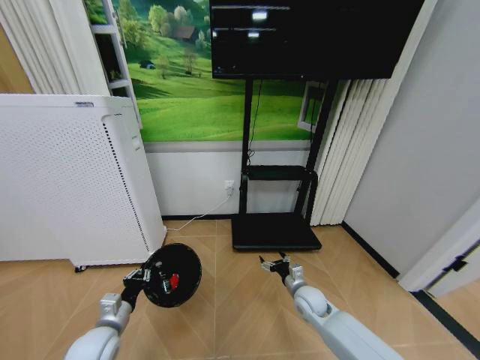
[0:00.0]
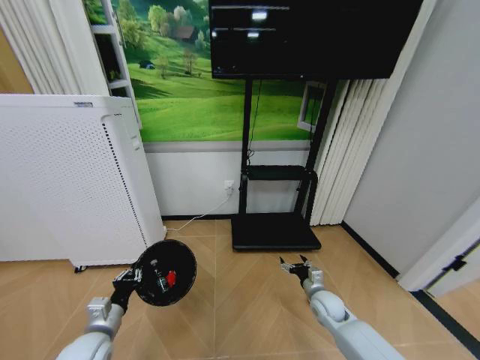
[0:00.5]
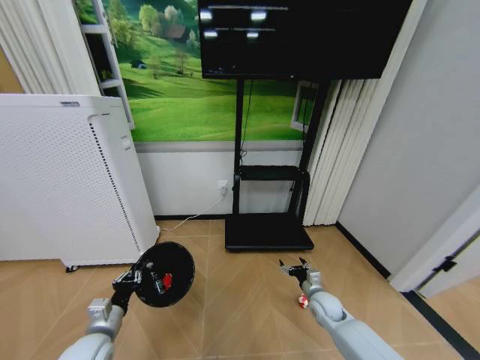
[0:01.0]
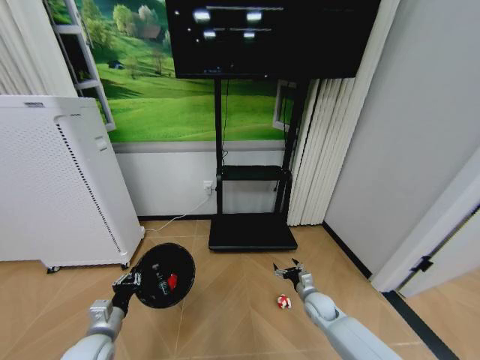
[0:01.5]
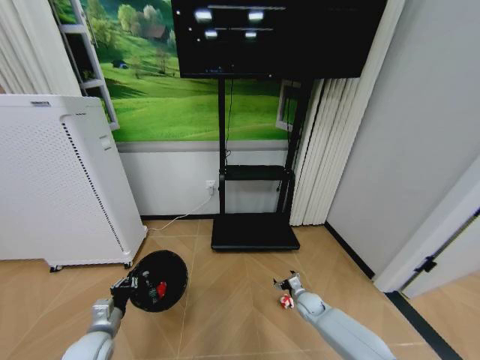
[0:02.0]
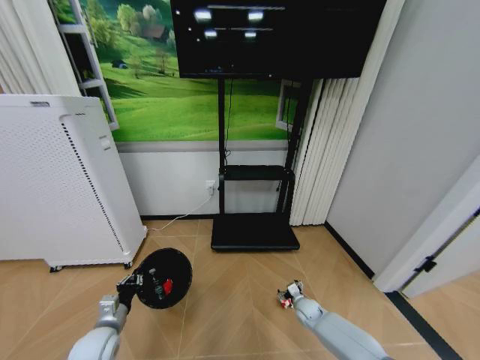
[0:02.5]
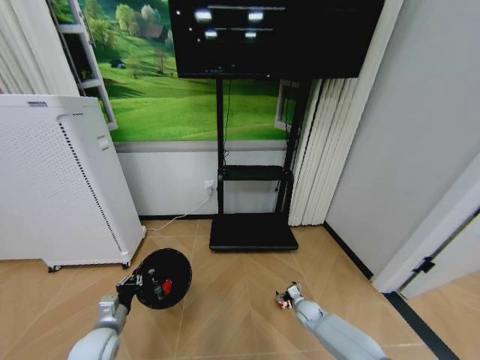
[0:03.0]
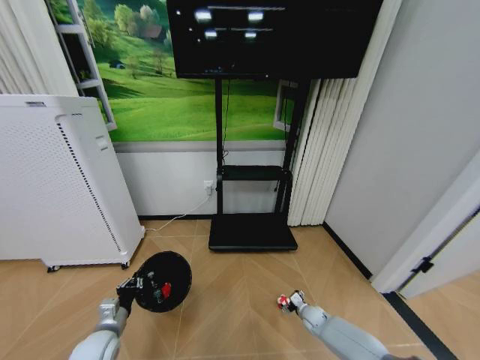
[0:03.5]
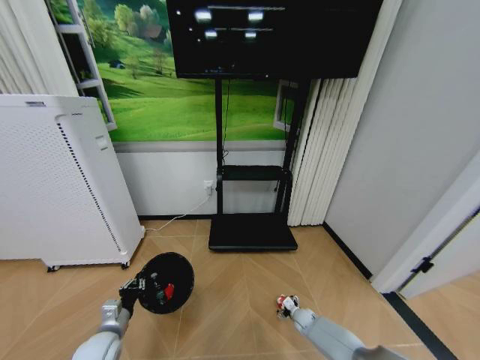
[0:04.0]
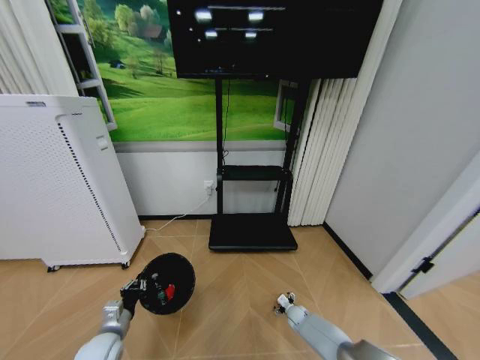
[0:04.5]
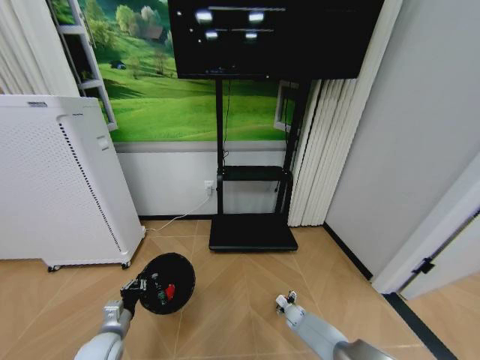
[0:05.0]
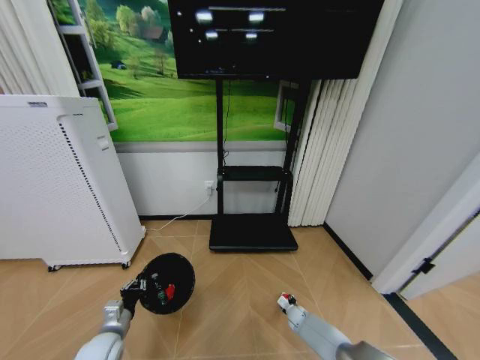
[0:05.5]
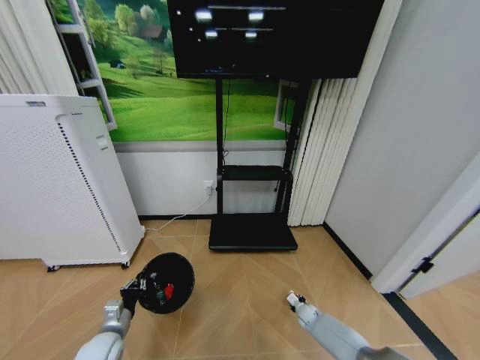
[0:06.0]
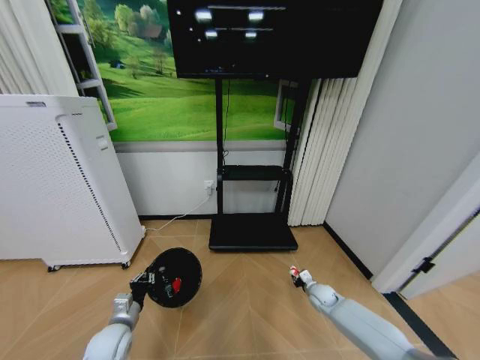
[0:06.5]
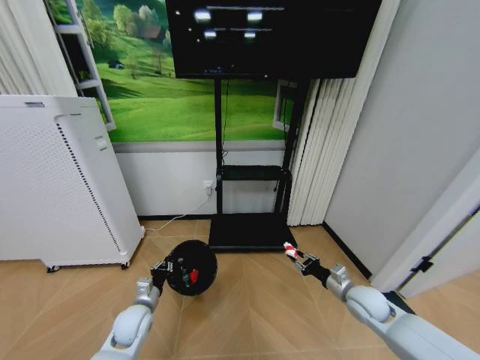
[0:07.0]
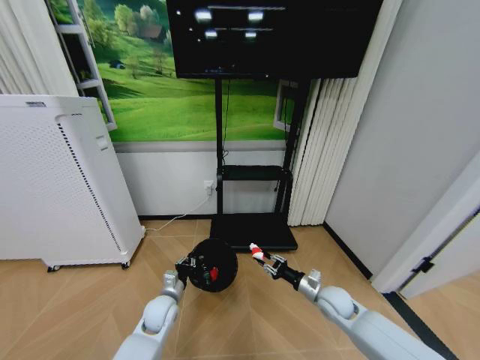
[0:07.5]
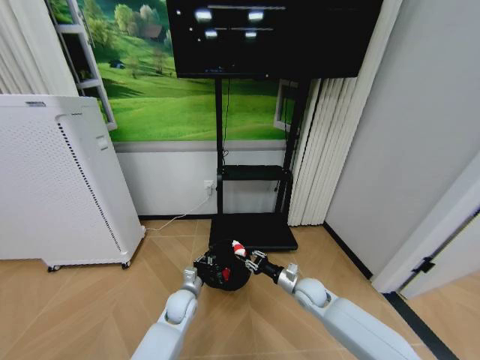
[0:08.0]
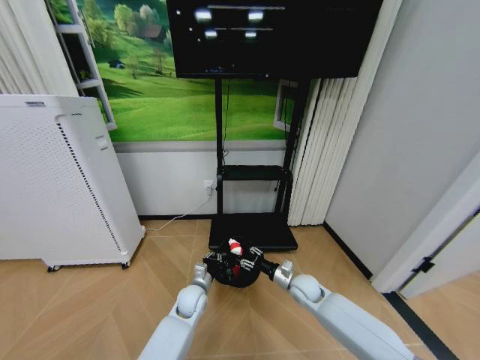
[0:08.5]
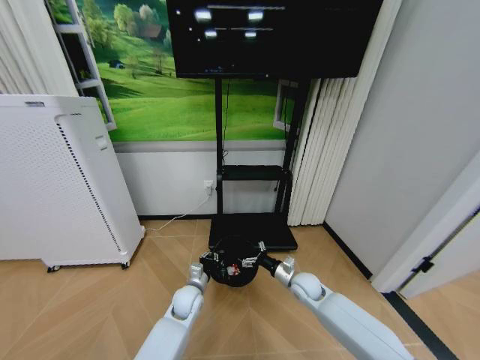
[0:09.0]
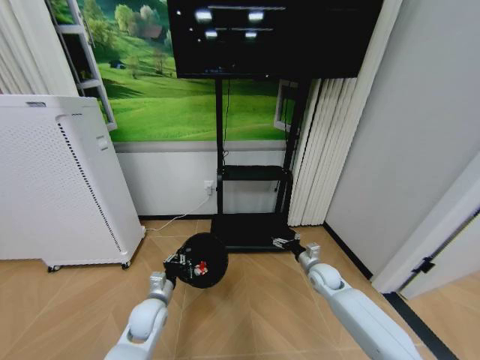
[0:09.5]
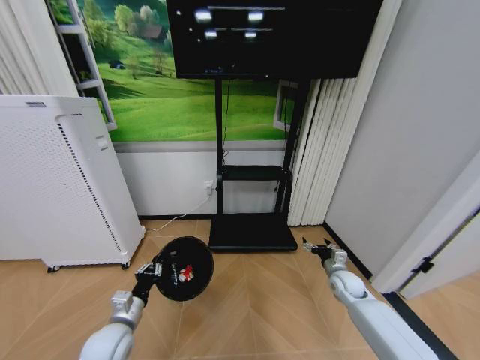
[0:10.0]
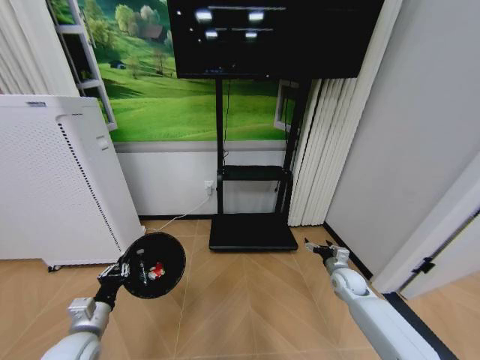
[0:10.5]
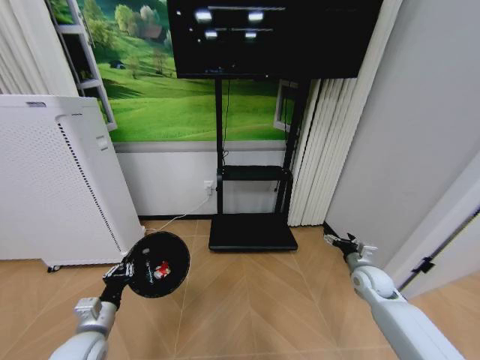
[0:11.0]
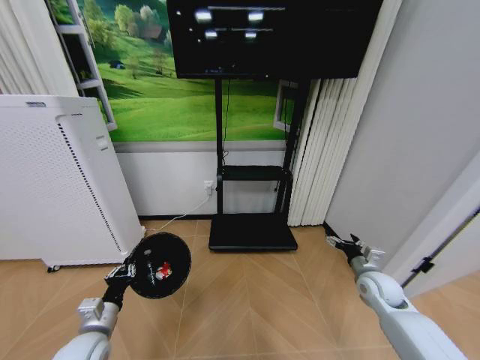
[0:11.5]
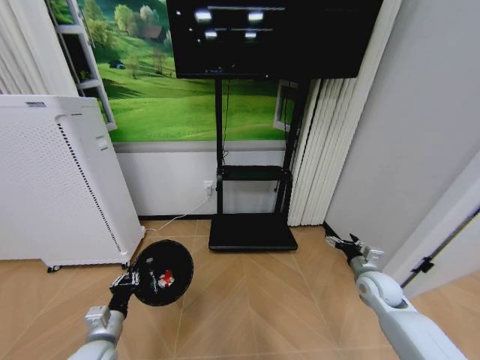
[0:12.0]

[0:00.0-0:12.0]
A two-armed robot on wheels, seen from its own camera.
Task of the whole recording: Pick up the trash bin and place the garbage on the floor into it.
0:00.0 to 0:02.0: The right gripper shifts approximately 10 cm downward and to the right.
0:02.0 to 0:04.0: The right gripper travels downward by approximately 10 cm.
0:04.0 to 0:06.0: The right gripper closes.
0:06.0 to 0:08.0: The right gripper travels upward by approximately 20 cm. Meanwhile the left gripper moves to the right and forward, some 20 cm.
0:08.0 to 0:10.0: The right gripper moves to the right, about 15 cm, and opens. Meanwhile the left gripper is displaced to the left, backward and upward by roughly 20 cm.
0:10.0 to 0:12.0: The right gripper heads upward and backward, covering about 10 cm. The left gripper moves roughly 5 cm.

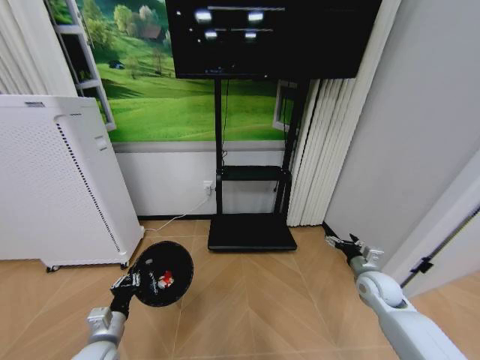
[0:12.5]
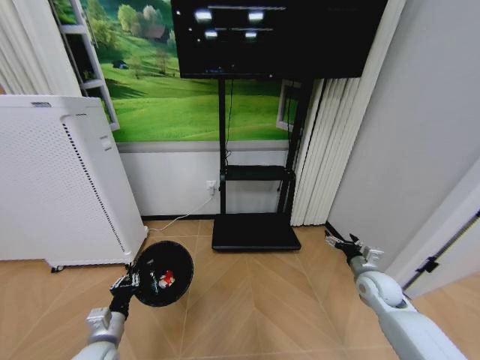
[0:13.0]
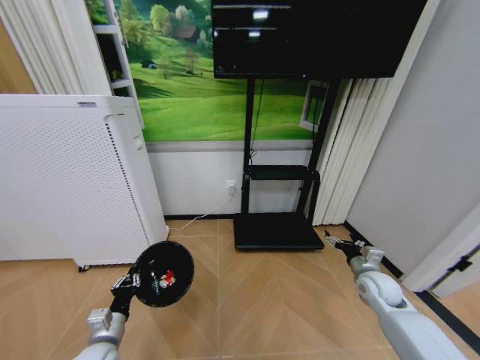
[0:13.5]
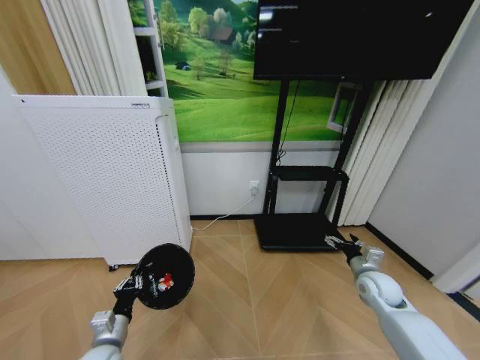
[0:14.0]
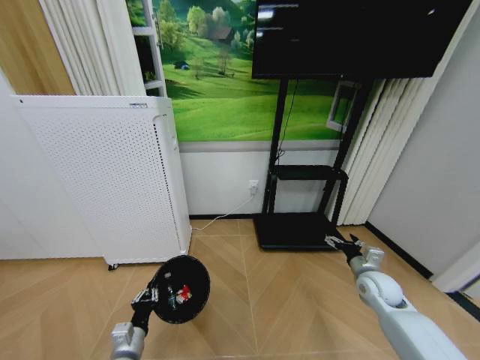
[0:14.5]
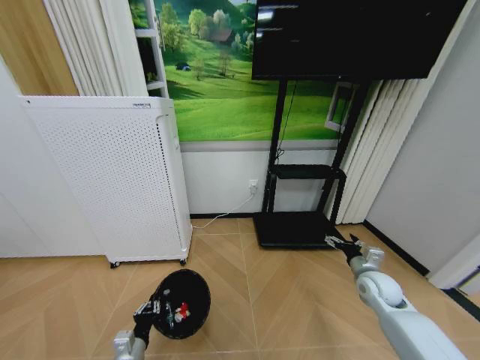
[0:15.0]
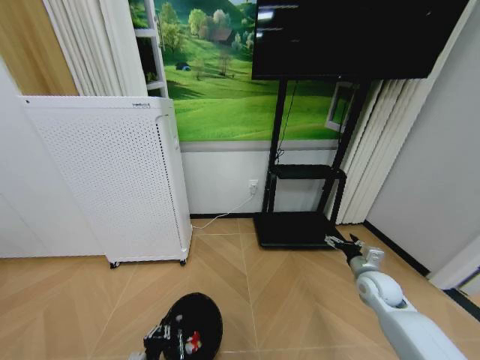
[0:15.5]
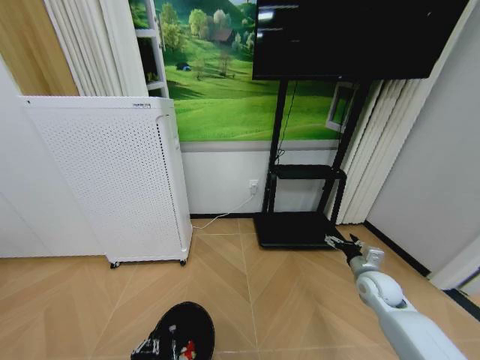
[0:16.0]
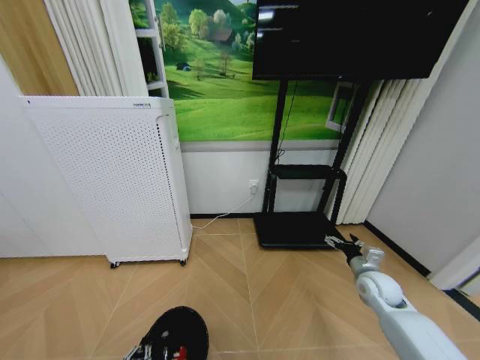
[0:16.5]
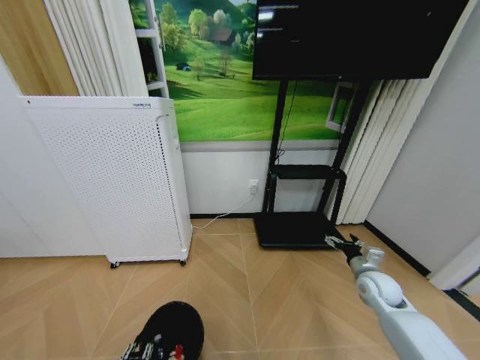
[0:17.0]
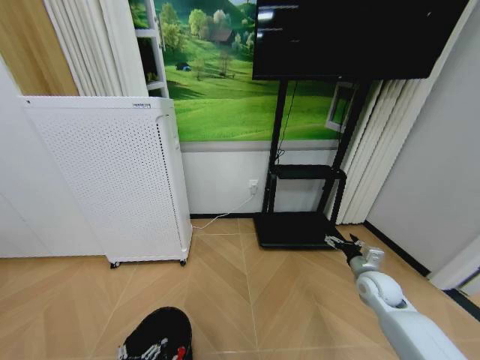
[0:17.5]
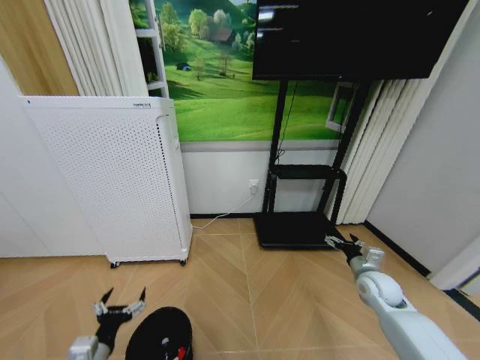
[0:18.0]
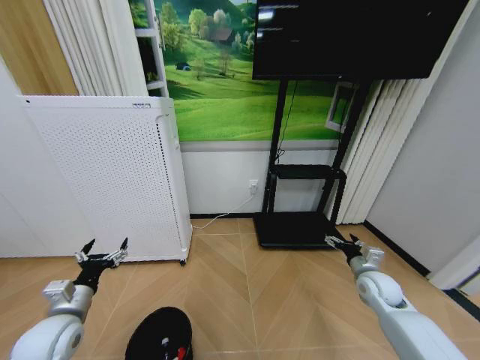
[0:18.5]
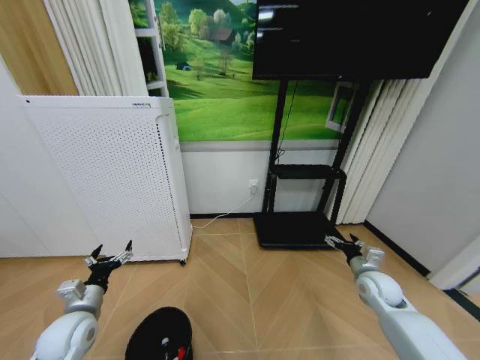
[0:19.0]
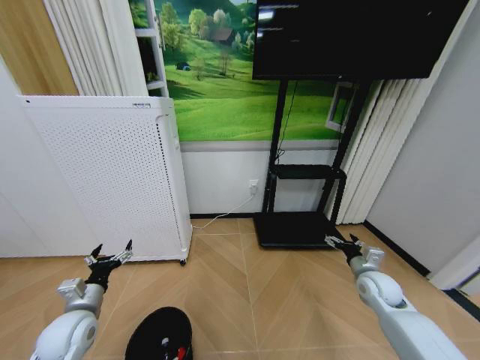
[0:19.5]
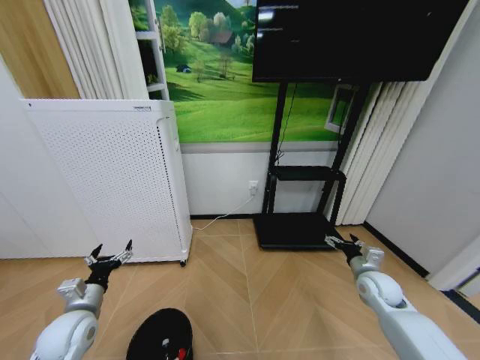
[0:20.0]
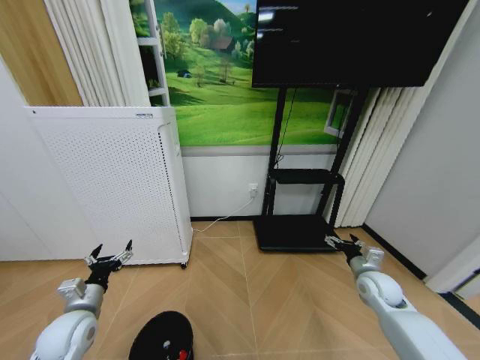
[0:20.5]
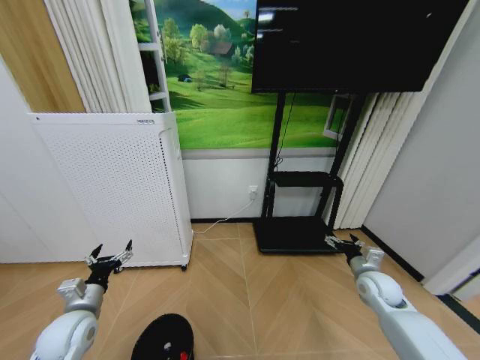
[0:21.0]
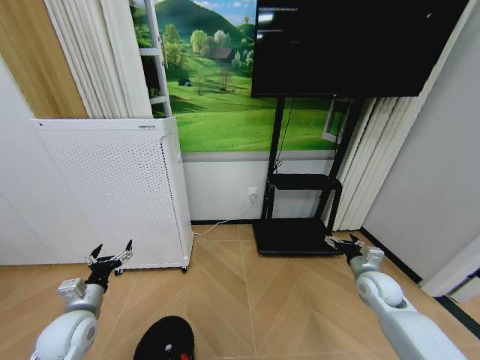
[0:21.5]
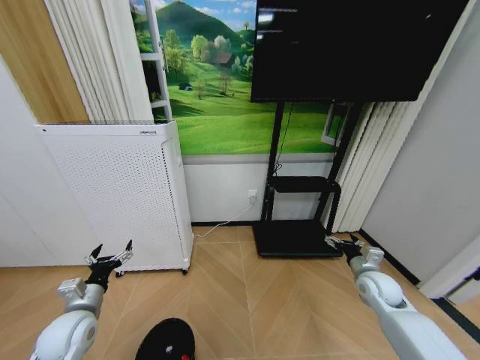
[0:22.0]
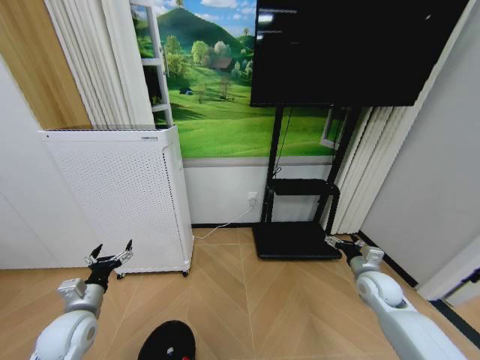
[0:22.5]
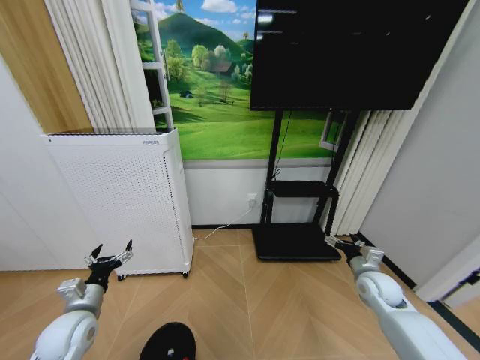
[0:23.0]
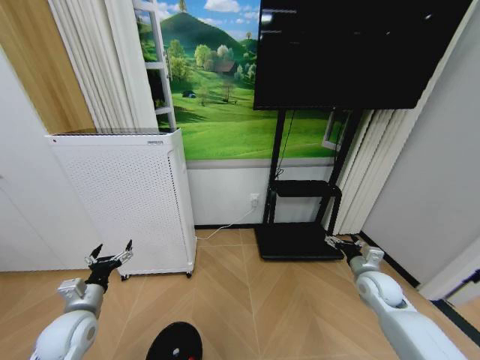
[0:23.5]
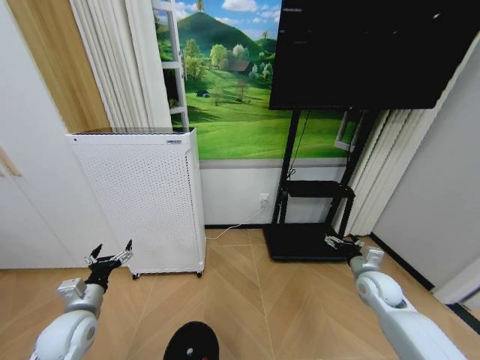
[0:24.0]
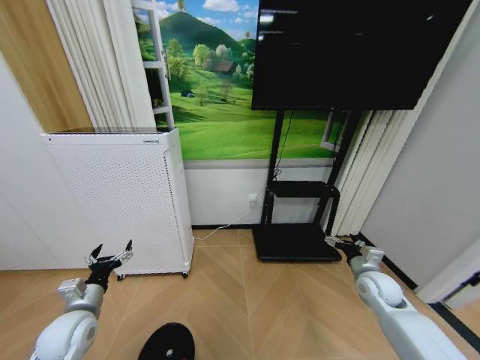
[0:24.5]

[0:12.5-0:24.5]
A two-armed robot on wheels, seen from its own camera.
Task of the whole recording: Pick up the trash bin and place the garbage on the floor into it.
0:12.5 to 0:14.5: The left gripper shifts by some 5 cm.
0:14.5 to 0:16.5: The left gripper moves backward, roughly 10 cm.
0:16.5 to 0:18.5: The left gripper goes roughly 25 cm upward, forward and to the left, and opens up.
0:18.5 to 0:20.5: The grippers stay close to where they were, moving slightly.
0:20.5 to 0:24.5: Neither gripper changes place.

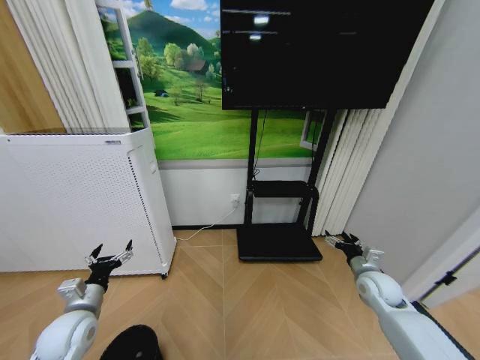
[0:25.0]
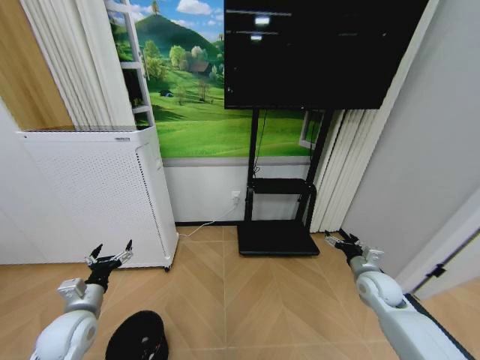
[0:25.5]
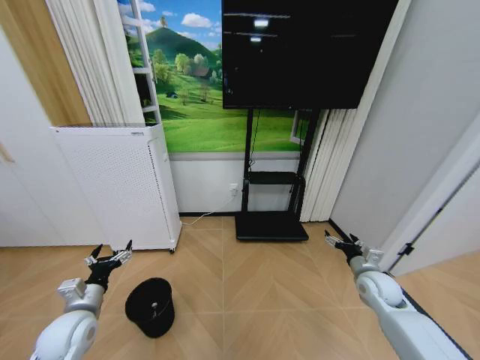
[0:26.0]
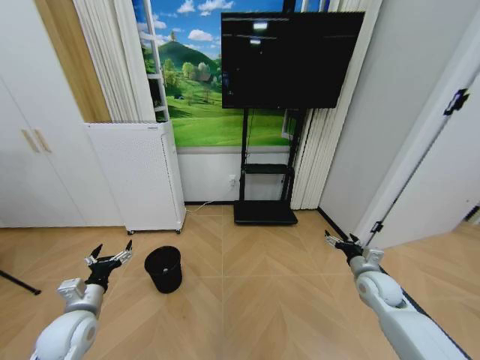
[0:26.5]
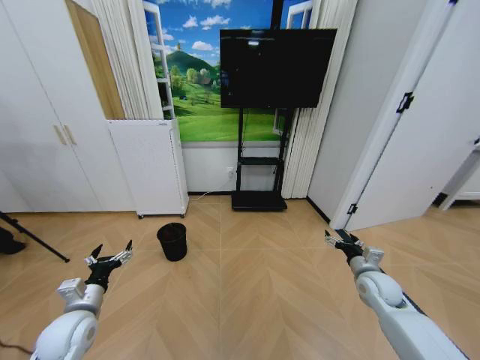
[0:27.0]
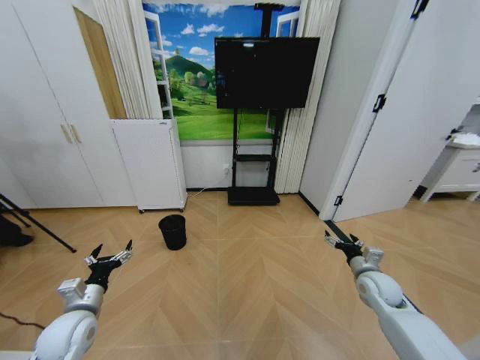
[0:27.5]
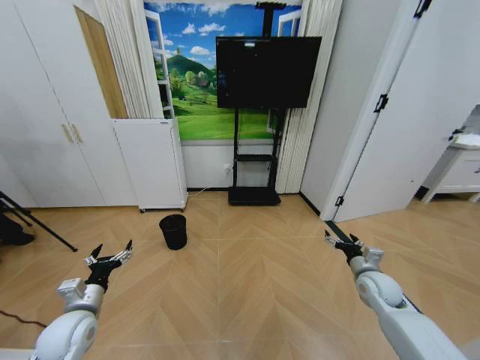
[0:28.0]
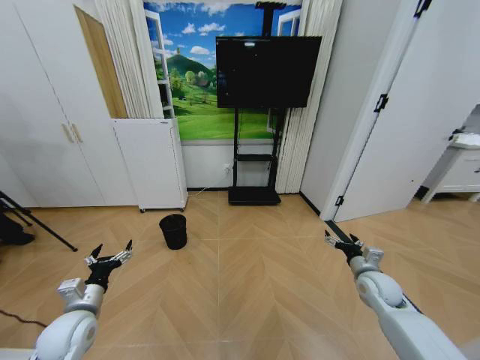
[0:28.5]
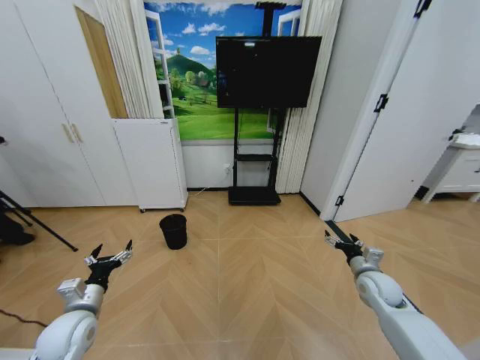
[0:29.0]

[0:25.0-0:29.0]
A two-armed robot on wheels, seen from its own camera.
Task of the whole recording: Pick up the trash bin and place the garbage on the floor into it.
0:27.0 to 0:29.0: The two grippers keep their place.
